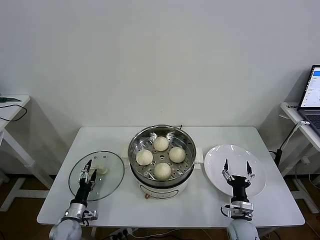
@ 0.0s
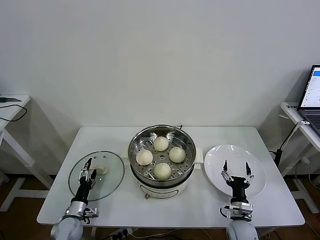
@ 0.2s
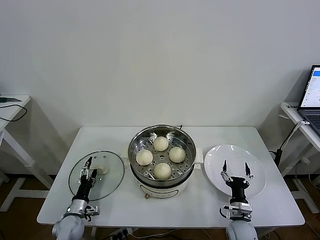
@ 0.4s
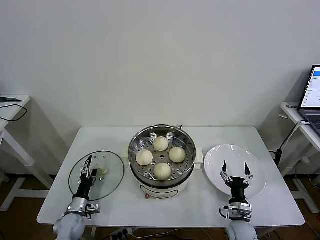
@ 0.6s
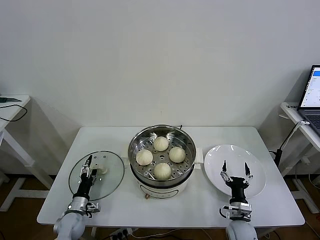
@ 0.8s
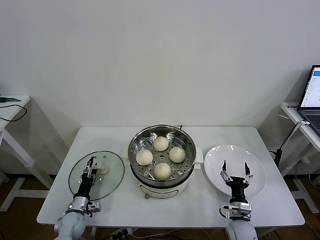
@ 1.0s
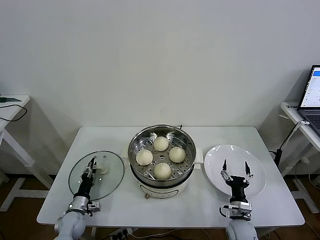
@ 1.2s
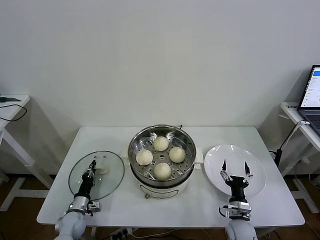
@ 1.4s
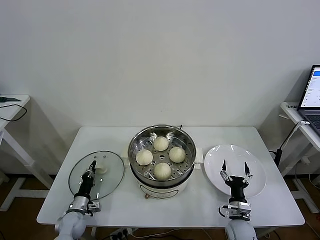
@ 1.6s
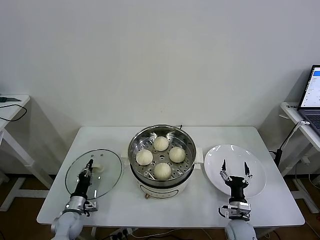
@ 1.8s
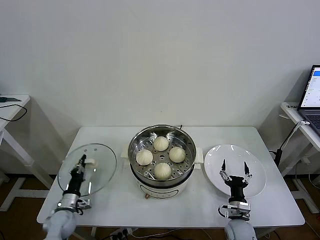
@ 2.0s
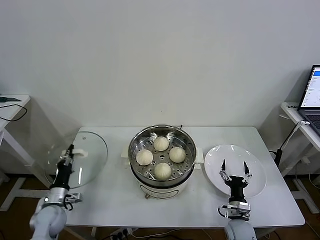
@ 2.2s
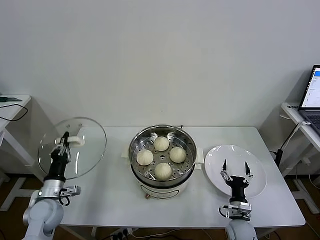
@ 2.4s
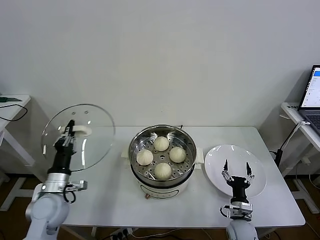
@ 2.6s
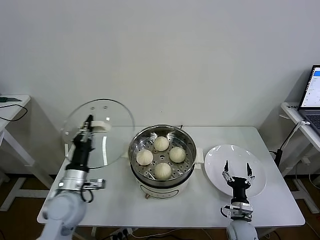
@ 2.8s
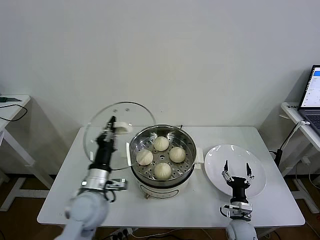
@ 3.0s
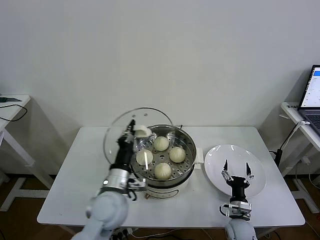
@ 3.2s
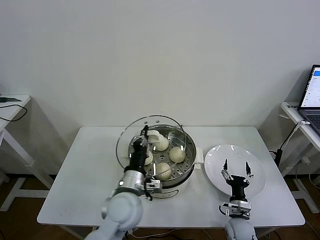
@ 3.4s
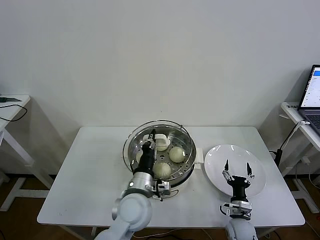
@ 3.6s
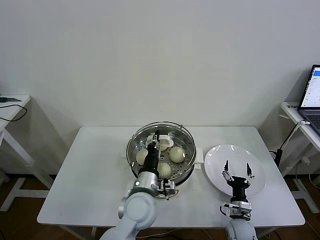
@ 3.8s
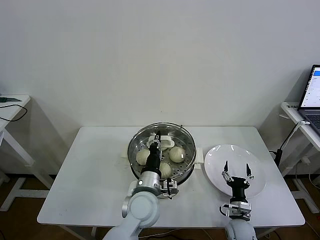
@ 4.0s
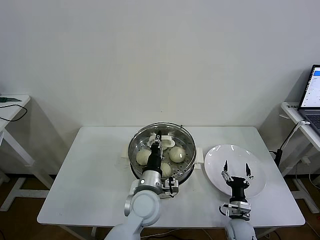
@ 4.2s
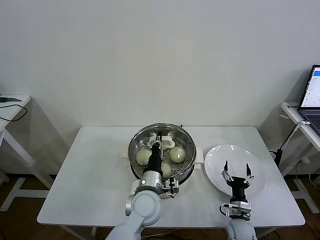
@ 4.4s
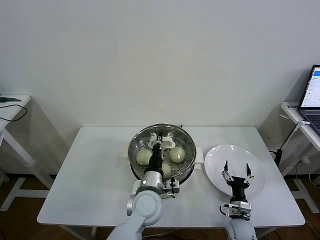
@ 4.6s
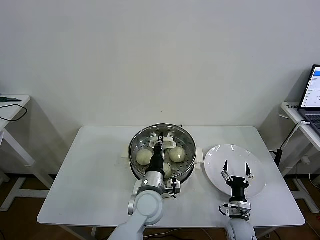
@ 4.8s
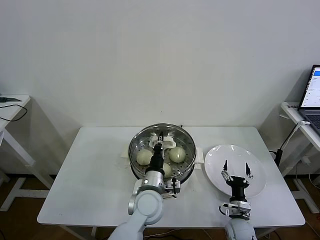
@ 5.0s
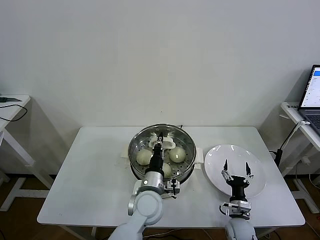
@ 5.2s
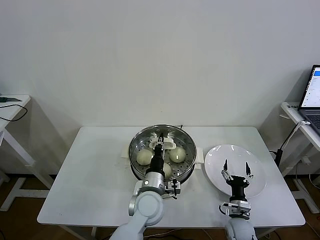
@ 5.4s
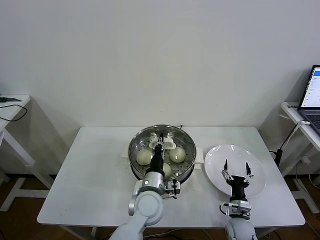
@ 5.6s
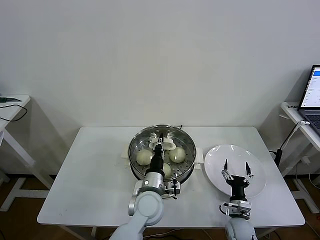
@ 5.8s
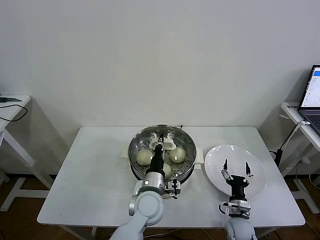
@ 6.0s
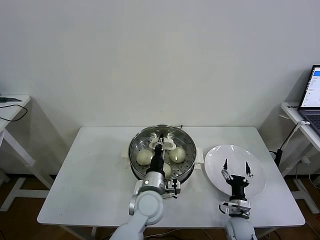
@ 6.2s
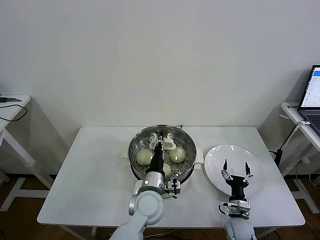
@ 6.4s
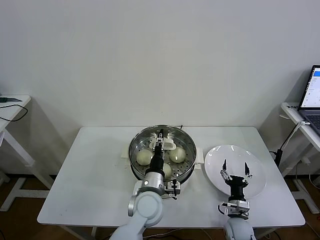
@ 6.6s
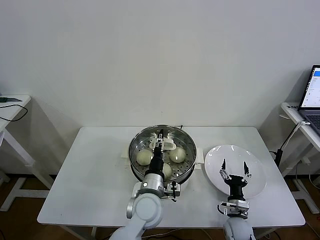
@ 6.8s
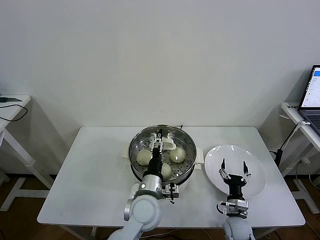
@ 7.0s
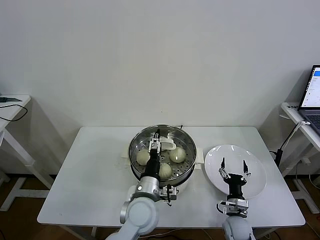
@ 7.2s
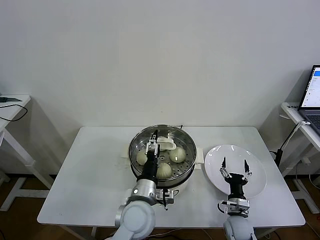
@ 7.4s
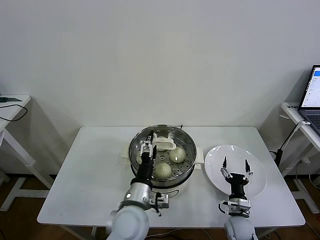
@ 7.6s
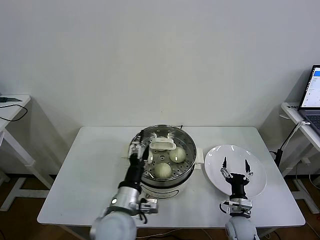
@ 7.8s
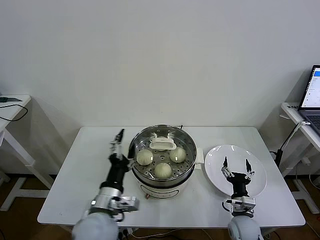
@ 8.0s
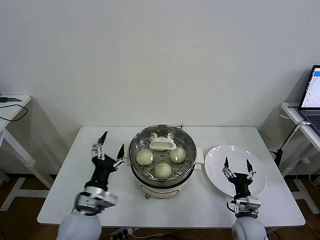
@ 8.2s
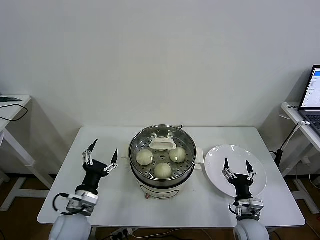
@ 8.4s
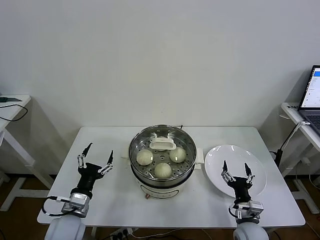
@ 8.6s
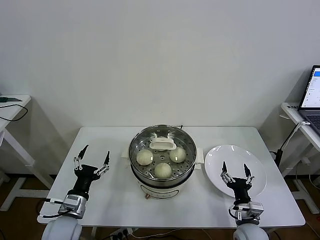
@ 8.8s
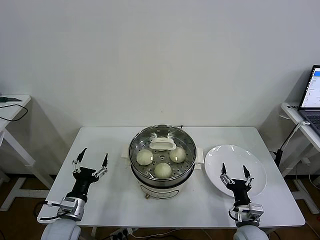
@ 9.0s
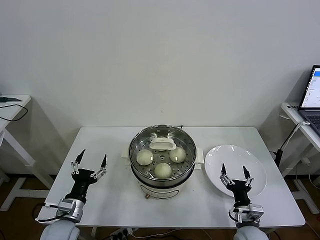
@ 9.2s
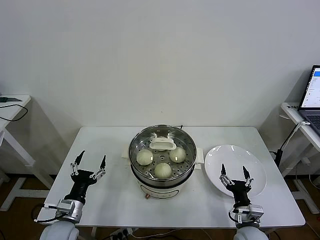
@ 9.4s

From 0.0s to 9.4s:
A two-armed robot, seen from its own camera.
Task of the whole recording: take steamed baozi put them in steamer then cover it.
Step, from 1.8s to 7.2s: Place the pot lid on the steamer with left gripper.
From 0.0s to 1.6s: The left gripper closes.
From 1.6s to 3.2s: The left gripper shifts some 30 cm upward and to the right.
From 3.2s to 4.8s: The left gripper moves to the right and downward, some 10 cm.
From 4.8s to 6.2s: Both grippers stay about where they are.
From 6.2s to 7.8s: The left gripper travels backward, to the left and upward by roughly 10 cm, and opens up.
From 7.8s to 9.4s: The left gripper moves to the left and downward, approximately 20 cm. The right gripper is displaced upward by about 5 cm.

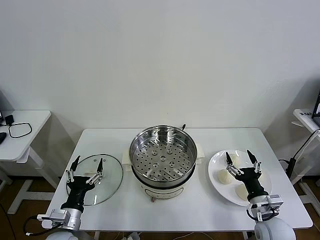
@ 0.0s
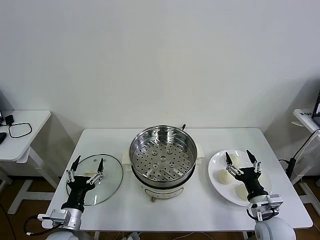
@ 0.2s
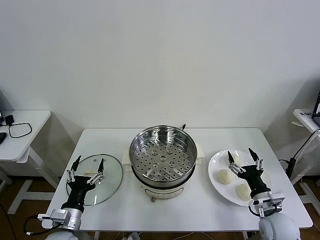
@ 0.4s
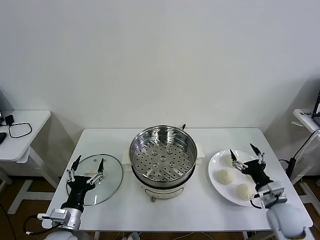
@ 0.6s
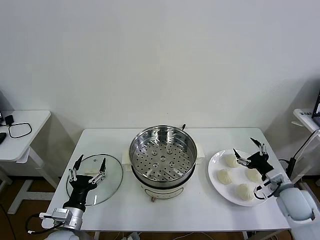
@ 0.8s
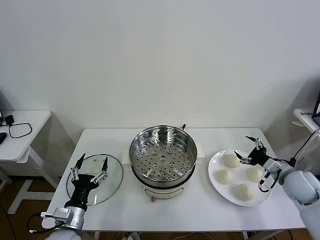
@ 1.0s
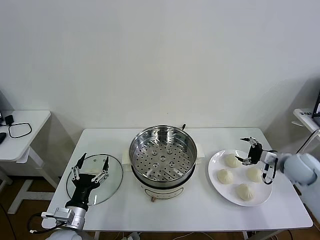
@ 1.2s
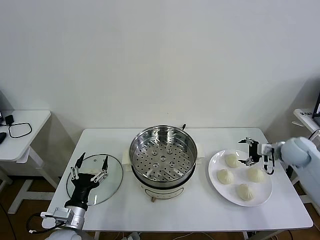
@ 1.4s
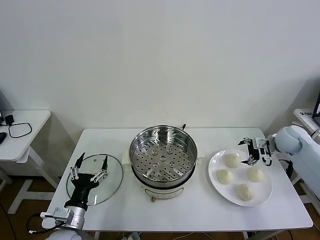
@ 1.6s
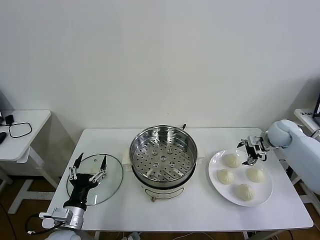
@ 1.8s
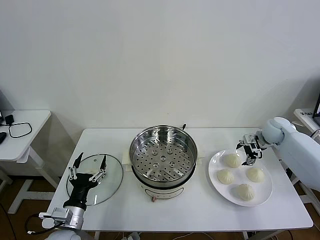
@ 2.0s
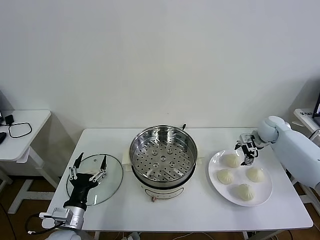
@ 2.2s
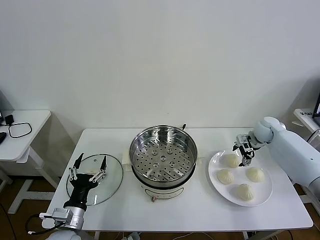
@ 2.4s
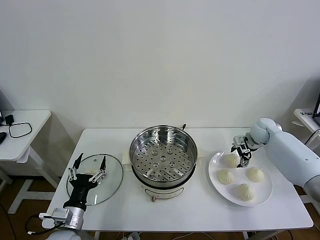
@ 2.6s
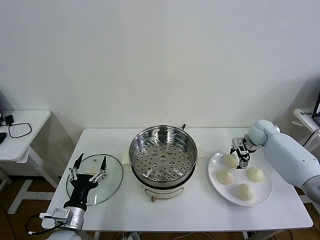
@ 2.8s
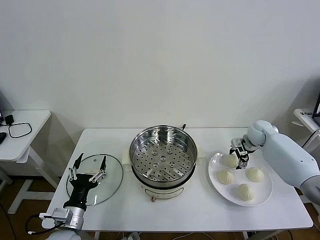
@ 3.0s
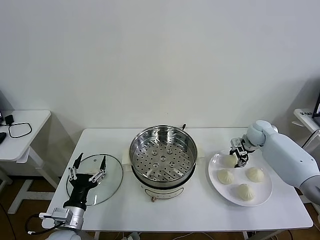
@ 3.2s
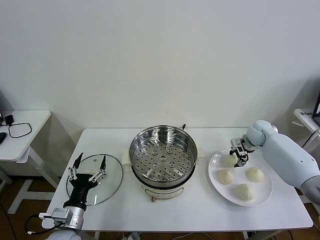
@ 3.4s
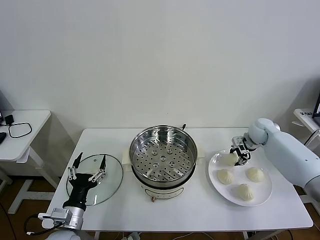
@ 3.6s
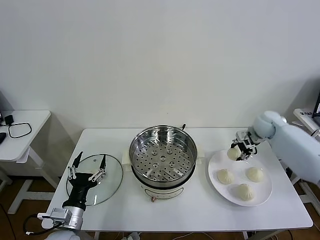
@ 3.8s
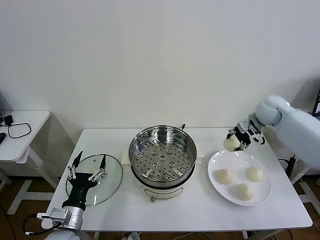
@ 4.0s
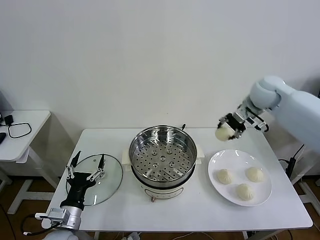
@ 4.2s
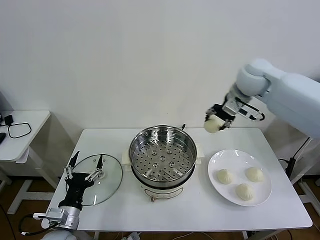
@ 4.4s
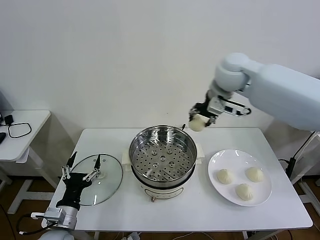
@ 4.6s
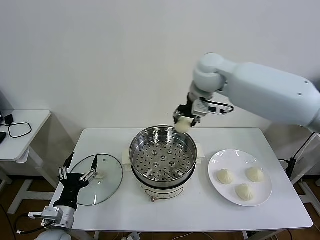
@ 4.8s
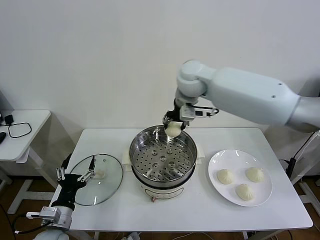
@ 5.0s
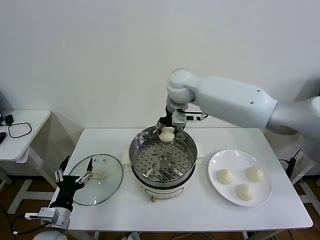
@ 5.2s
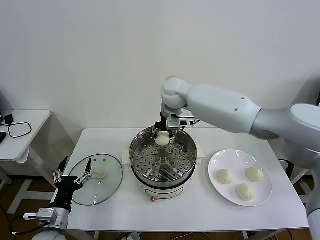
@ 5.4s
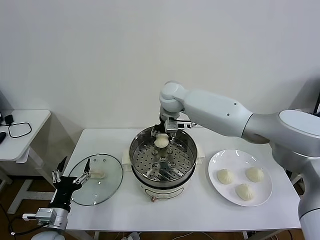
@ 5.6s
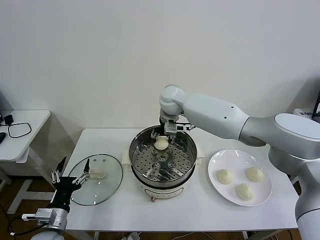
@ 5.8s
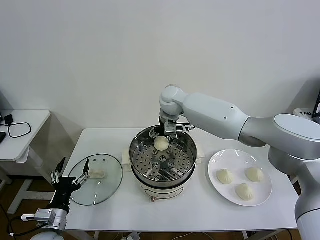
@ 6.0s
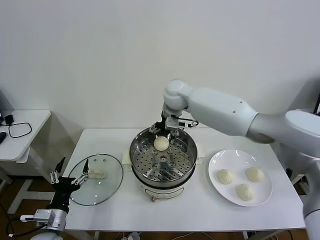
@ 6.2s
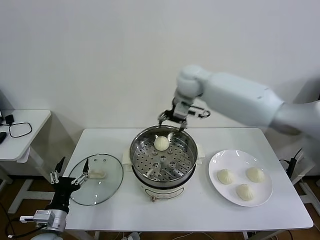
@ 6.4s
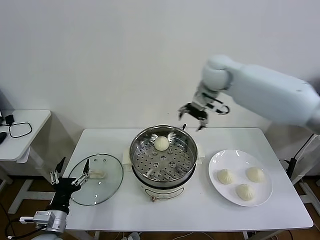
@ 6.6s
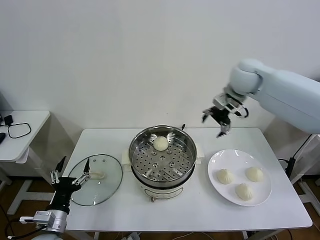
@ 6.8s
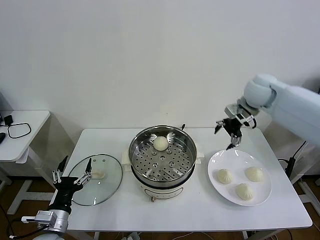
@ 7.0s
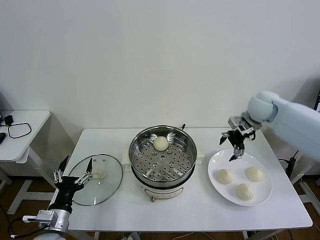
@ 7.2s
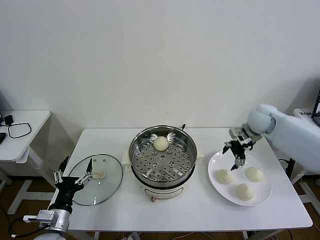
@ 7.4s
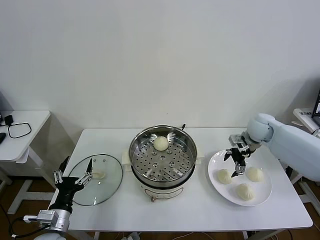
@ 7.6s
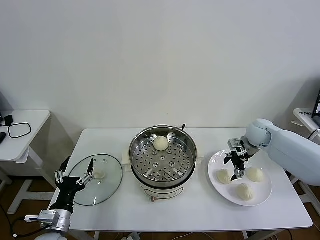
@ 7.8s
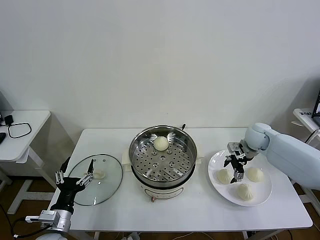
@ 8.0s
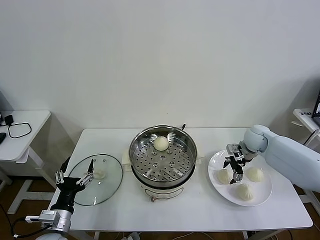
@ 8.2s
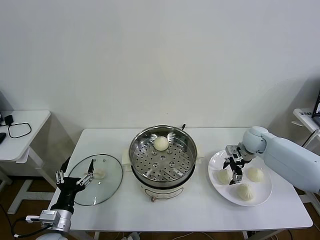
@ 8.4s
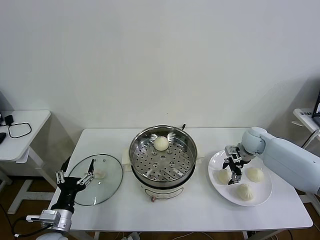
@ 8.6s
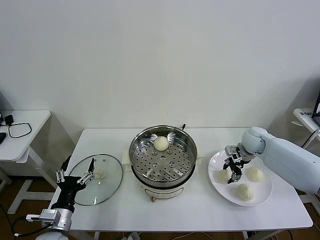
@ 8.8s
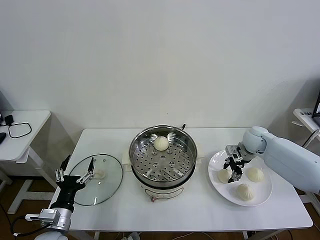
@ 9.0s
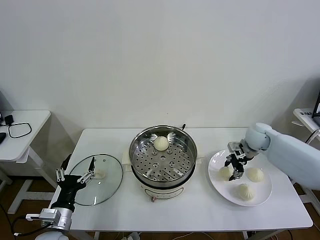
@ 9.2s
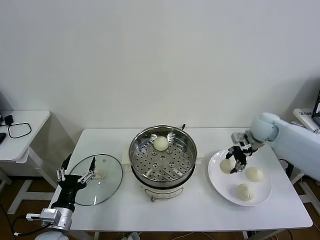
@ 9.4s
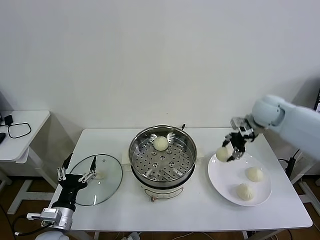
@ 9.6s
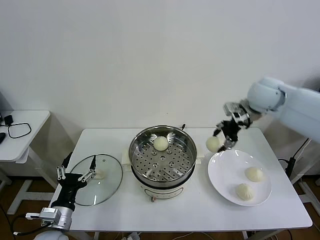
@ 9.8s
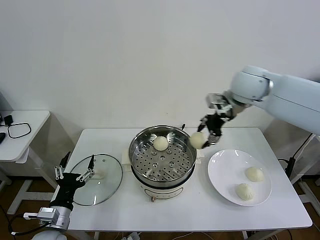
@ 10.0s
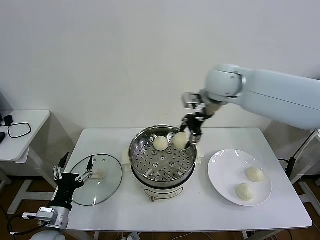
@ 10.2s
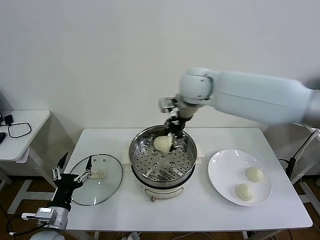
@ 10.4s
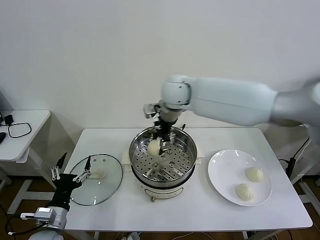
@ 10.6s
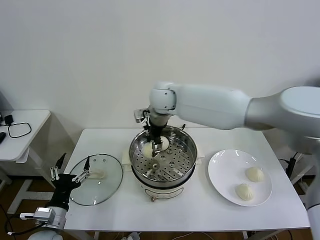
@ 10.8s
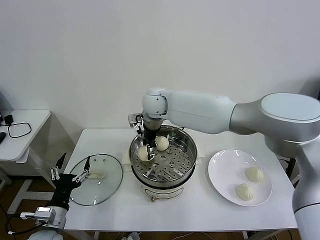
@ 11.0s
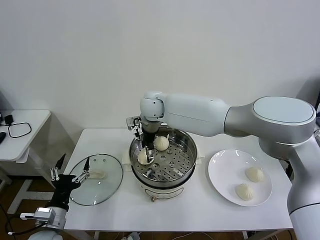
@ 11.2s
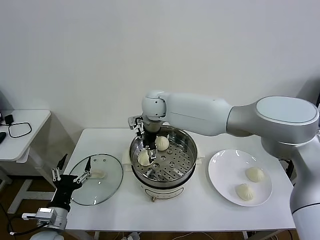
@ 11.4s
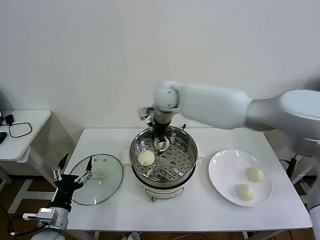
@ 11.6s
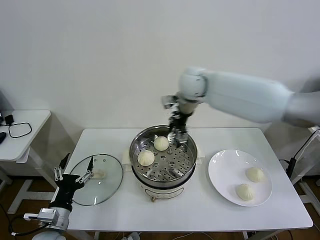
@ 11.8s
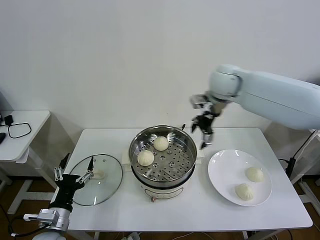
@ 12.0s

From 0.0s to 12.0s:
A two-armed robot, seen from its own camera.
Task of the whole recording: take steamed baozi put them in steamer then cover it.
Step, from 0.0s to 3.2s: Grasp the baozi in the plate with right gripper.
Step, from 3.4s to 6.0s: Place the baozi on the steamer with right gripper.
Step, from 6.2s to 8.8s: Grasp the baozi in the plate with right gripper.
Step, from 9.0s to 11.4s: Place the baozi on the steamer with right gripper.
From 1.6s to 3.0s: The right gripper shifts some 10 cm forward and to the left.
From 3.0s to 4.4s: The right gripper goes approximately 30 cm upward and to the left, and closes up.
From 4.4s to 6.0s: The right gripper heads to the left and downward, covering some 20 cm, and opens its fingers.
From 6.0s to 7.6s: The right gripper shifts about 30 cm to the right.
From 7.6s to 9.0s: The right gripper closes its fingers.
From 9.0s to 10.4s: The right gripper shifts some 35 cm to the left and upward.
From 10.4s to 12.0s: The right gripper is displaced to the right by approximately 15 cm, and opens up.
